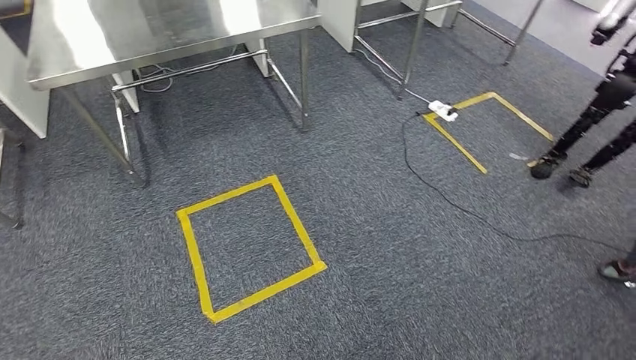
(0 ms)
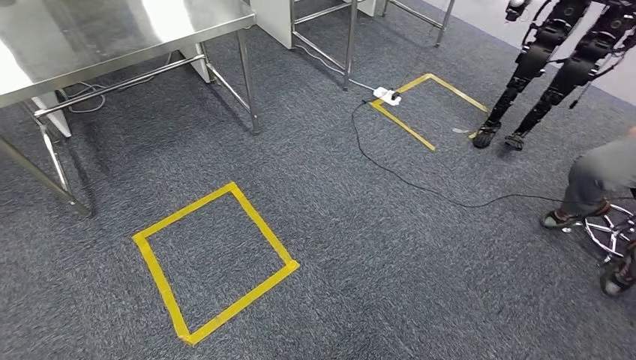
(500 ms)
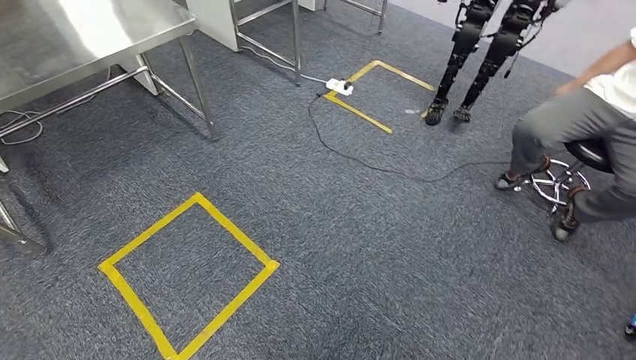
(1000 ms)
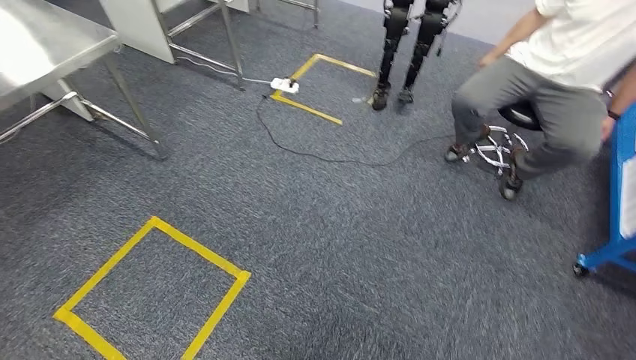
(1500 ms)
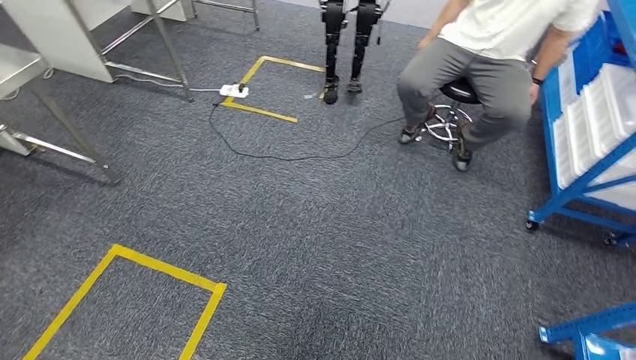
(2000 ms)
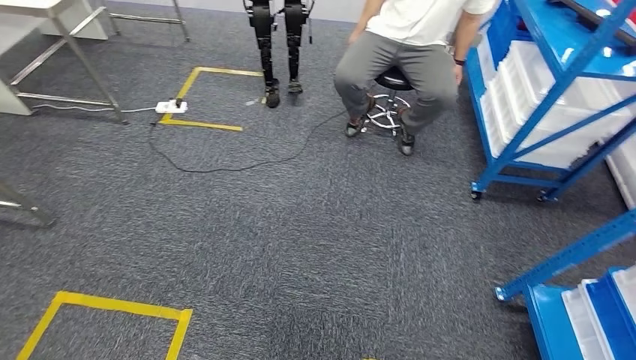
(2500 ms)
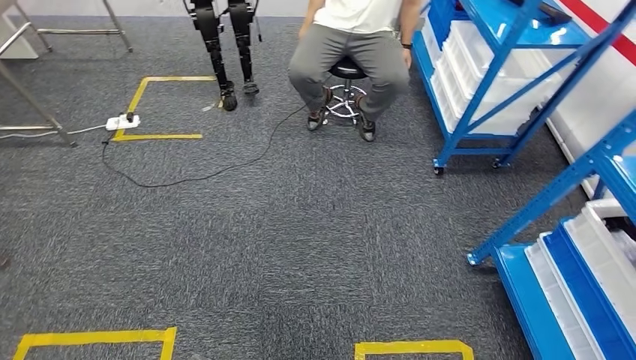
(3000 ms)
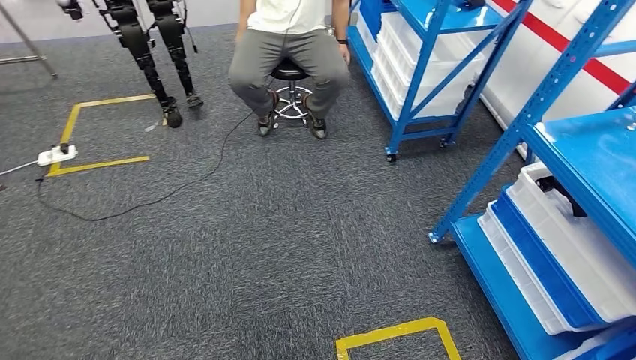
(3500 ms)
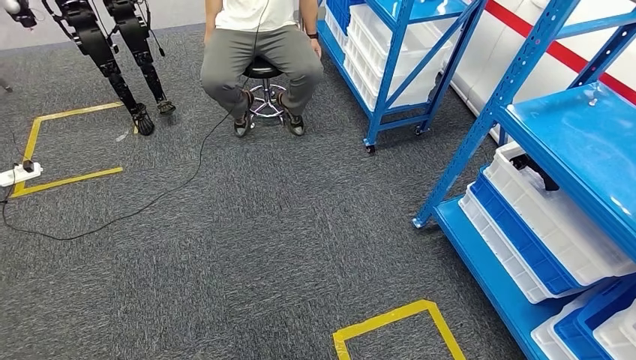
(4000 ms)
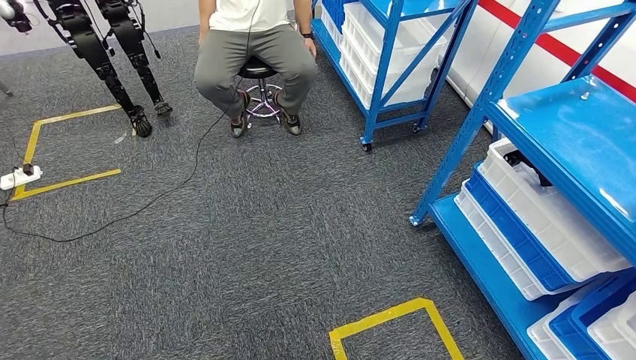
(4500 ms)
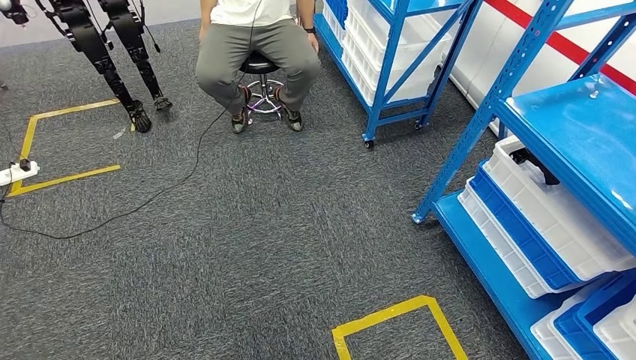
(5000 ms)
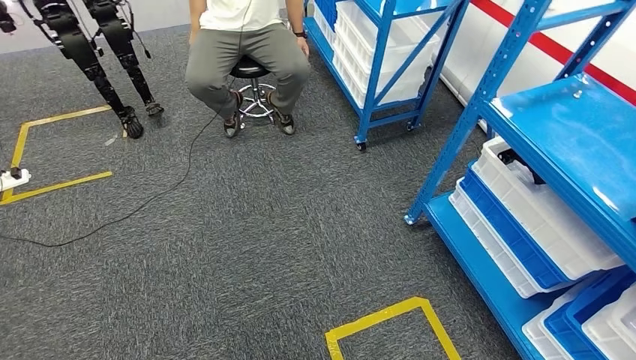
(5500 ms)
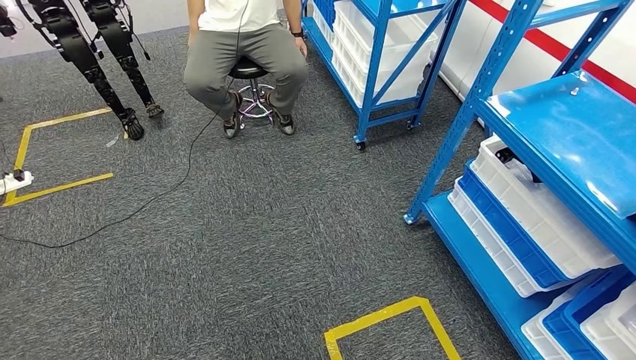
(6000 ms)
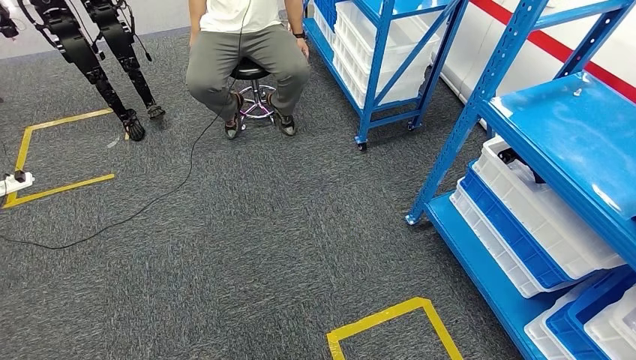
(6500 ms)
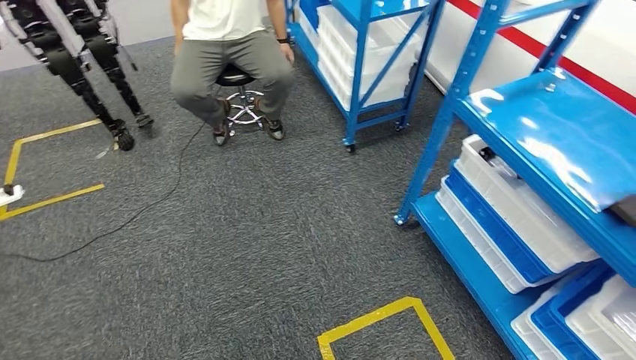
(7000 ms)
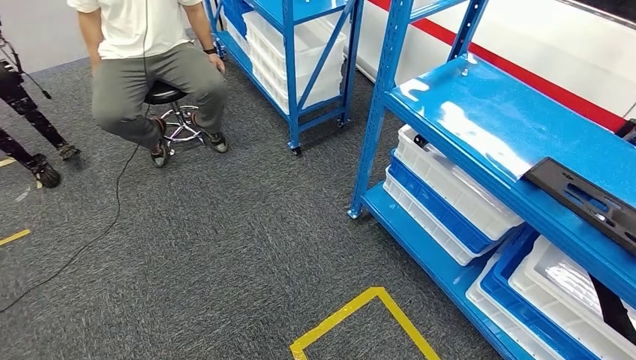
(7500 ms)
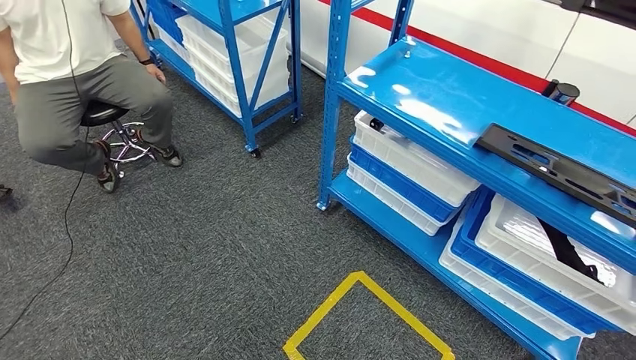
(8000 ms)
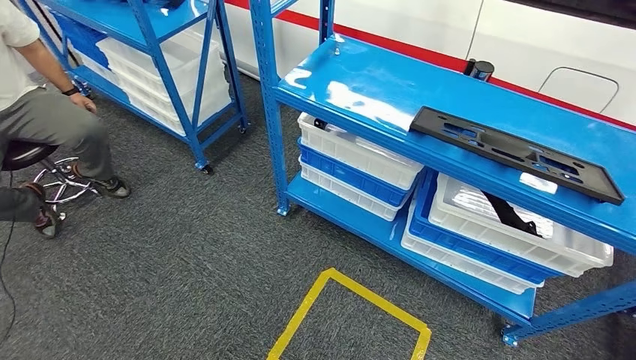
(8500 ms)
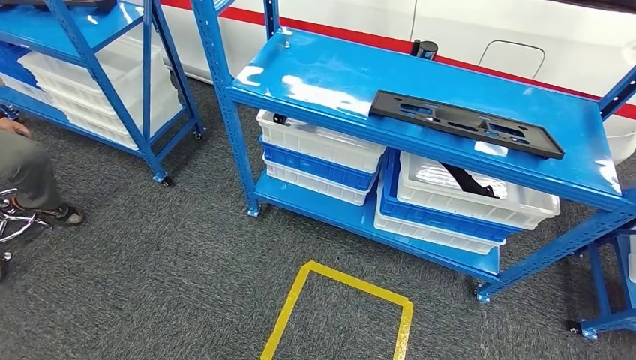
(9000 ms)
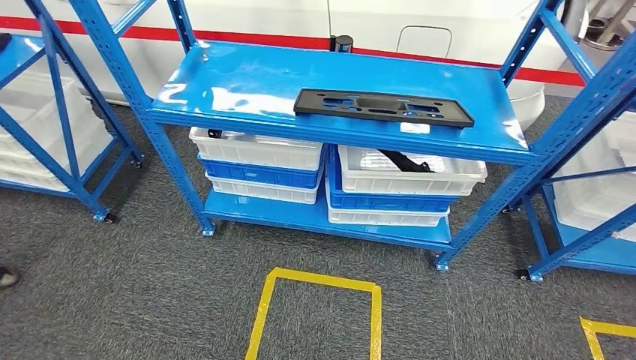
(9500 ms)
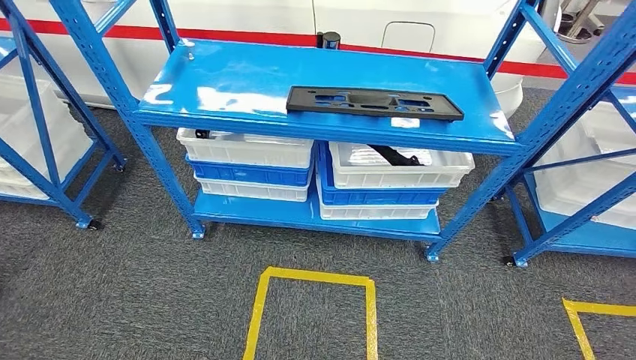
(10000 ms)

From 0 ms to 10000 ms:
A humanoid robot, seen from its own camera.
Step, from 0 ms to 10000 ms: Move to the initial position of the shelf.
